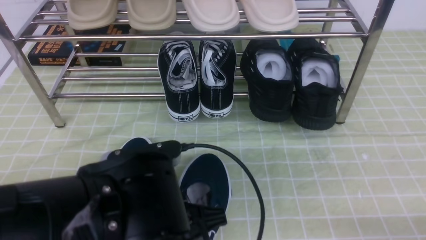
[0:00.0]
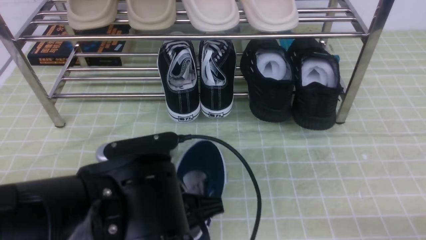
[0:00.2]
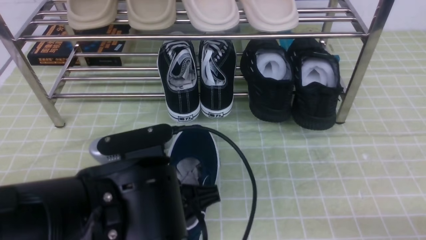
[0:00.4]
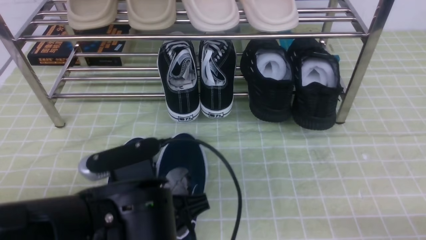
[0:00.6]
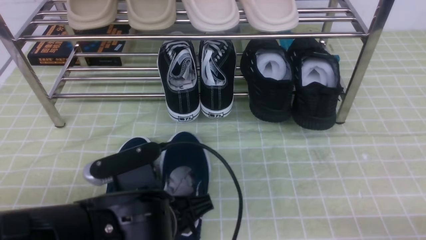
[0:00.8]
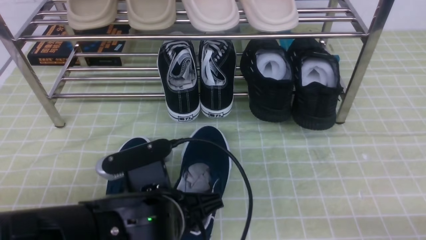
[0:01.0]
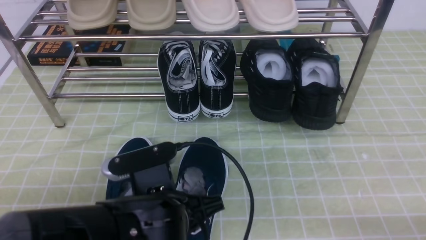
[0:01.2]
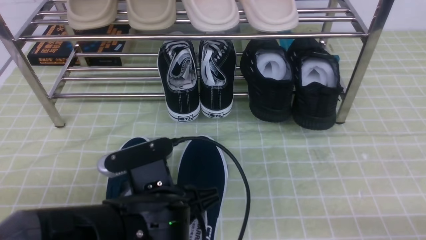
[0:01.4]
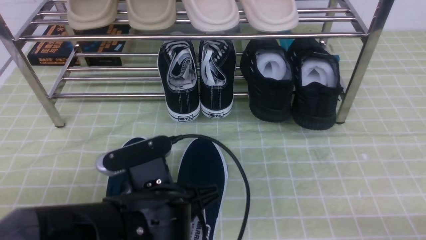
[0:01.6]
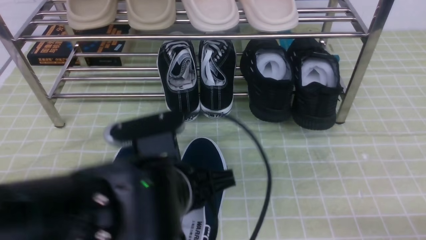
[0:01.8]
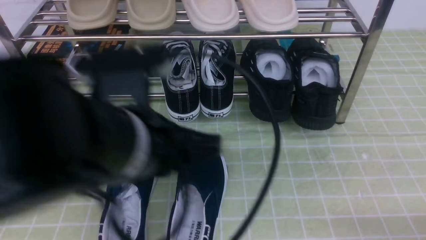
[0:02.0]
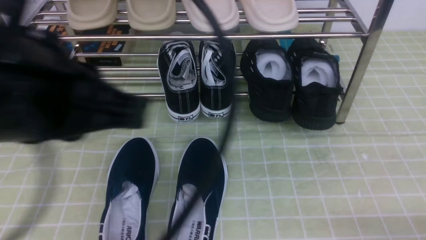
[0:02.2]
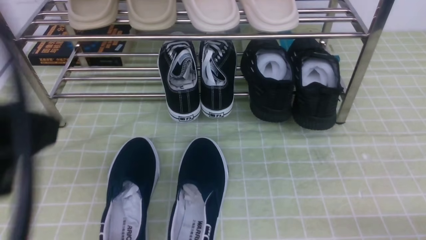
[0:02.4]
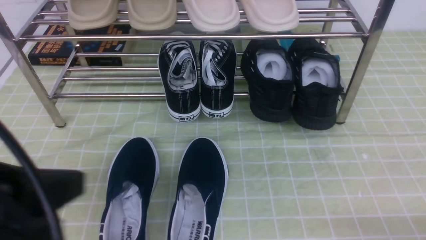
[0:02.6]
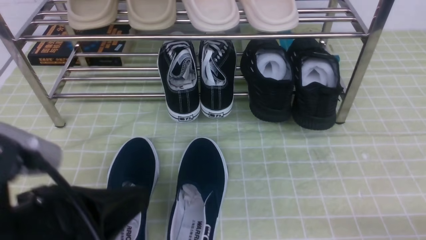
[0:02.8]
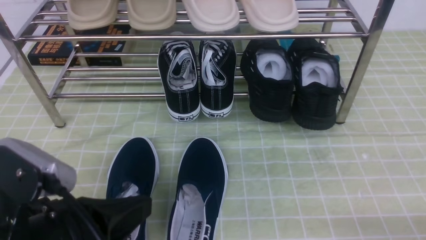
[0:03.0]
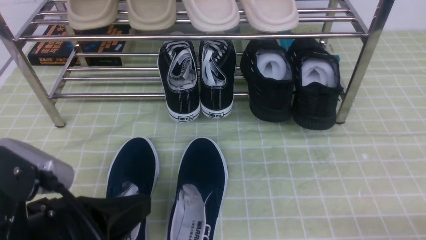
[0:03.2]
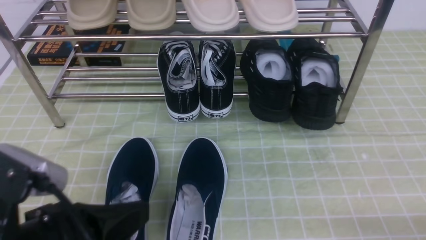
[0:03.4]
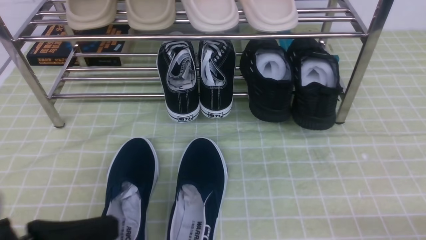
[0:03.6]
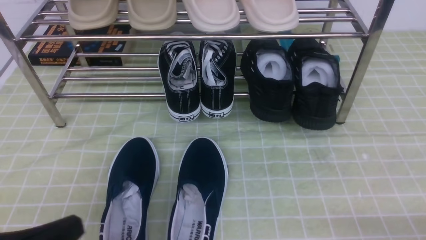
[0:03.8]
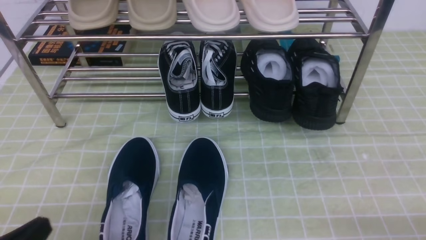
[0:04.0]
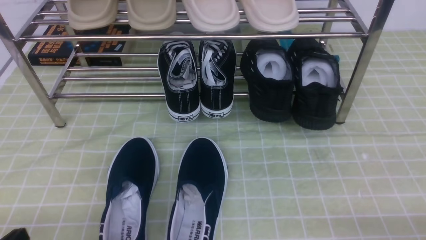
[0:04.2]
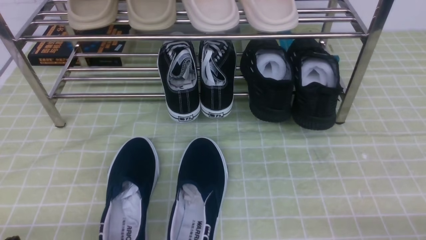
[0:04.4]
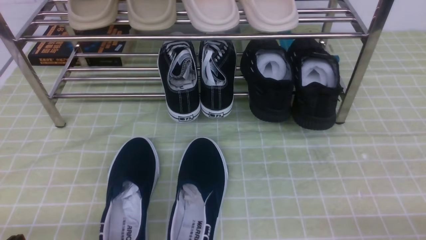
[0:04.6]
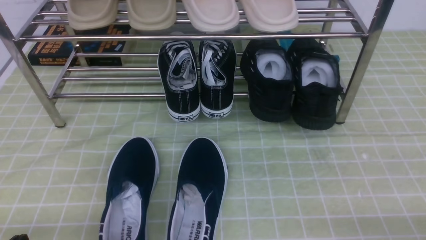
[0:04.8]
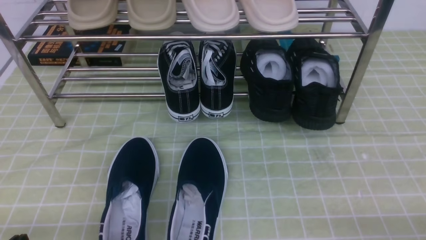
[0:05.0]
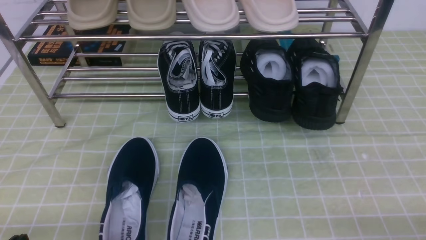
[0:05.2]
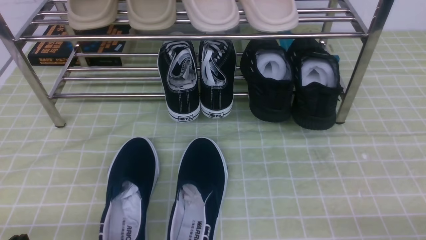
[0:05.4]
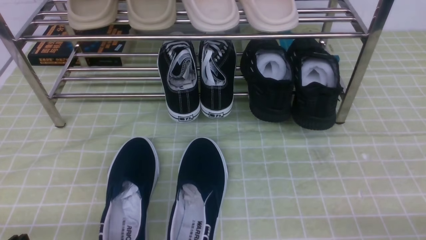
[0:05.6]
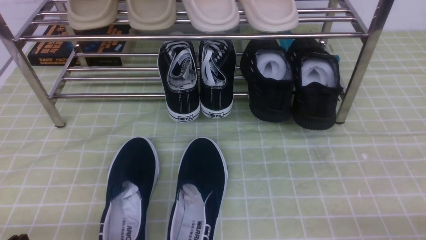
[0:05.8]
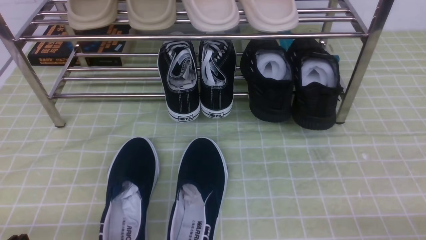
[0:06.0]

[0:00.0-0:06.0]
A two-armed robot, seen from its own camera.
0:00.0 to 0:01.6: The left gripper opens.
0:01.6 to 0:03.0: The left gripper shifts approximately 15 cm to the left and backward, reaches approximately 20 cm upward, then returns, and closes.
0:03.0 to 0:04.4: The left gripper travels downward and to the left by roughly 15 cm.
0:04.4 to 0:06.0: Neither gripper changes place.
